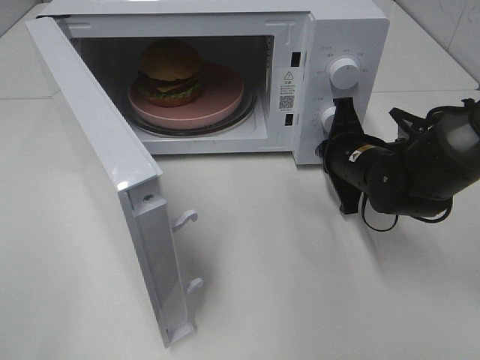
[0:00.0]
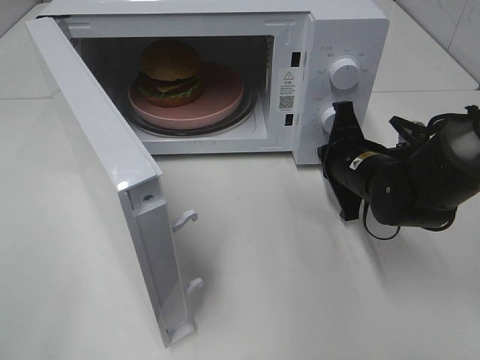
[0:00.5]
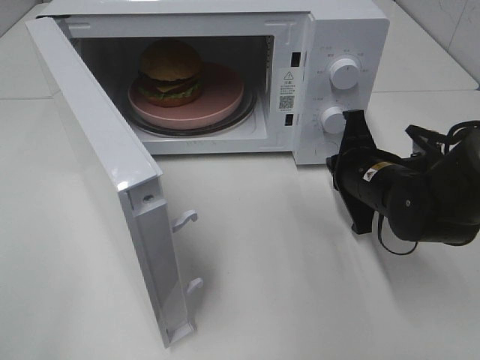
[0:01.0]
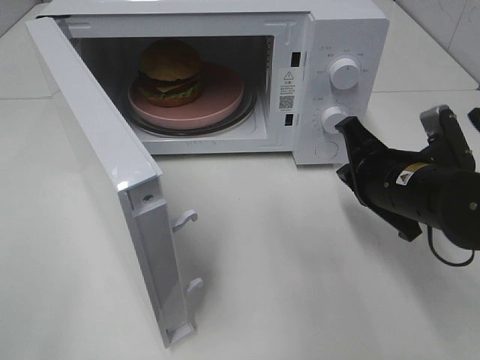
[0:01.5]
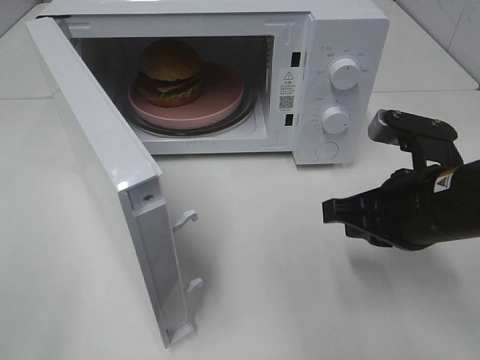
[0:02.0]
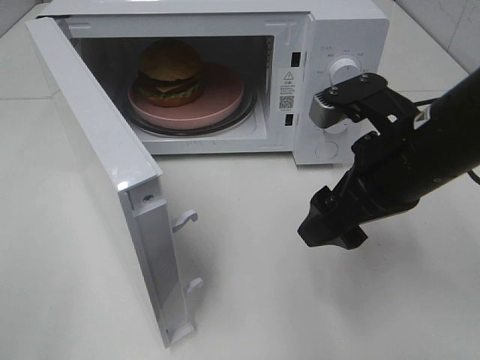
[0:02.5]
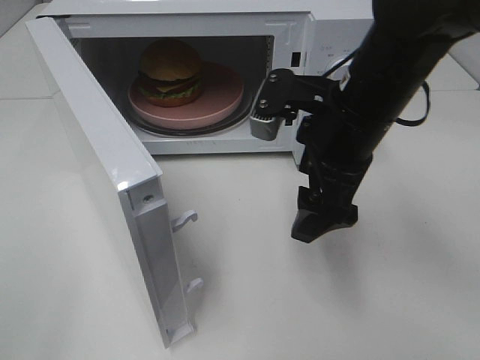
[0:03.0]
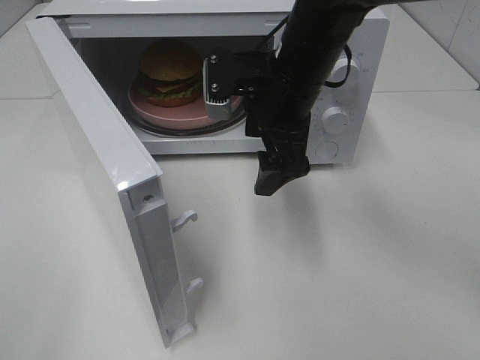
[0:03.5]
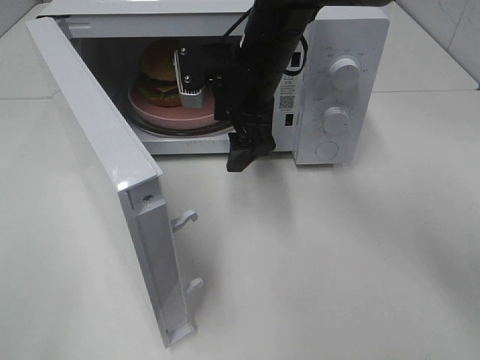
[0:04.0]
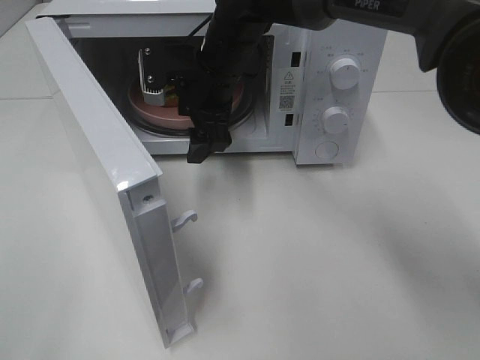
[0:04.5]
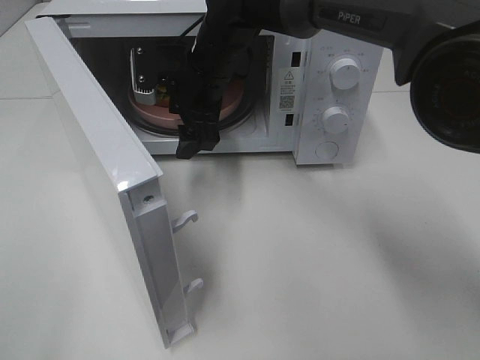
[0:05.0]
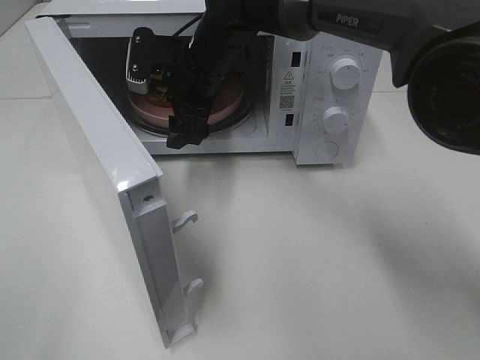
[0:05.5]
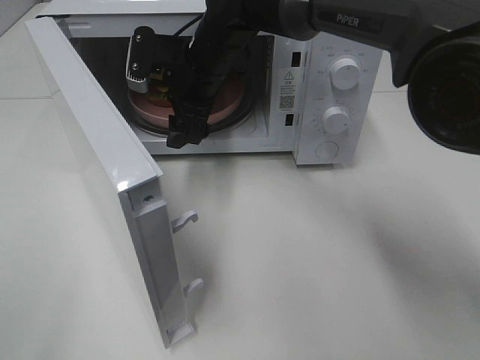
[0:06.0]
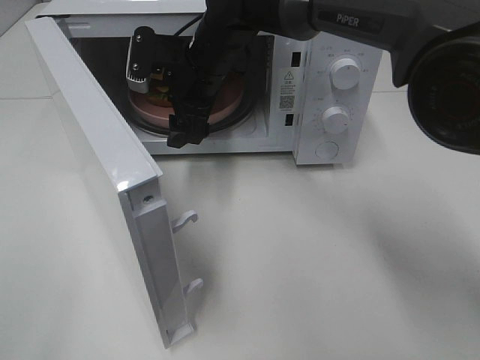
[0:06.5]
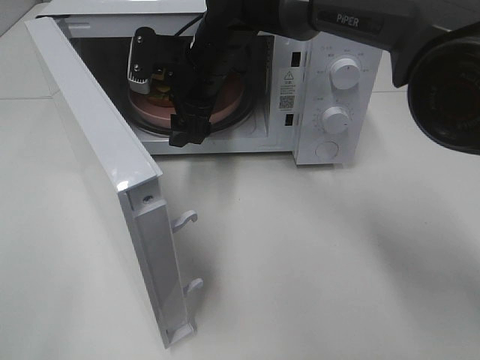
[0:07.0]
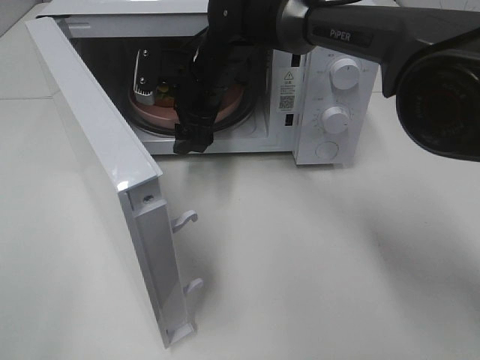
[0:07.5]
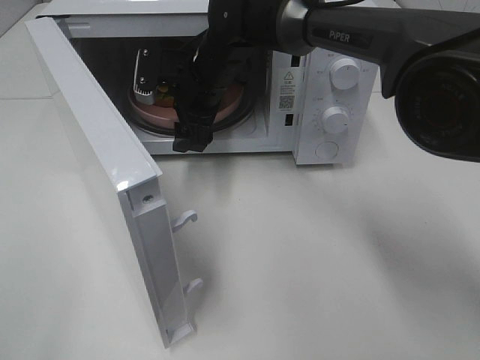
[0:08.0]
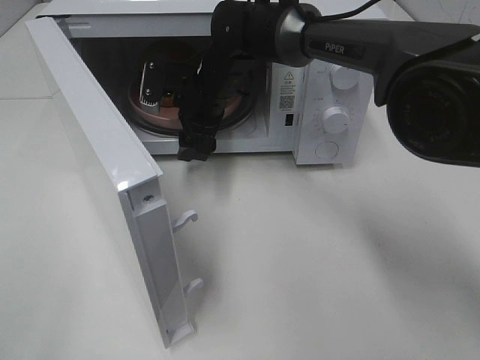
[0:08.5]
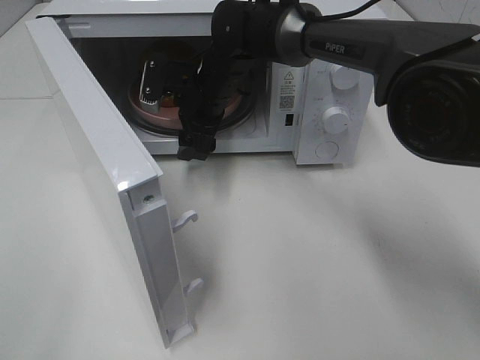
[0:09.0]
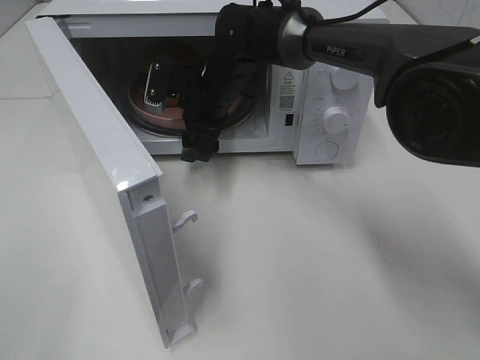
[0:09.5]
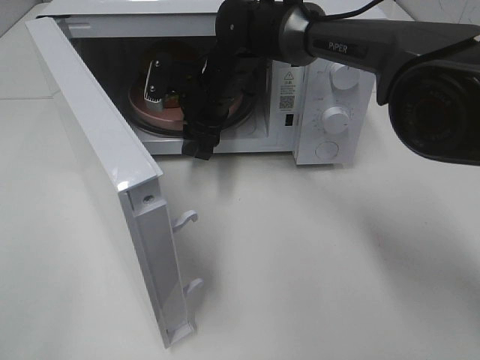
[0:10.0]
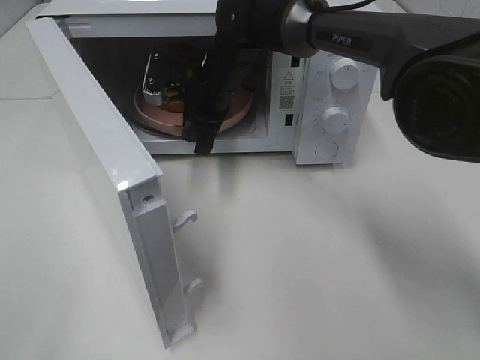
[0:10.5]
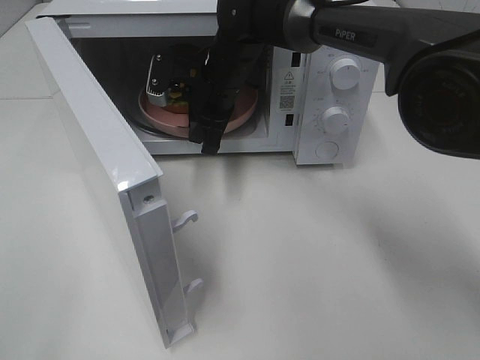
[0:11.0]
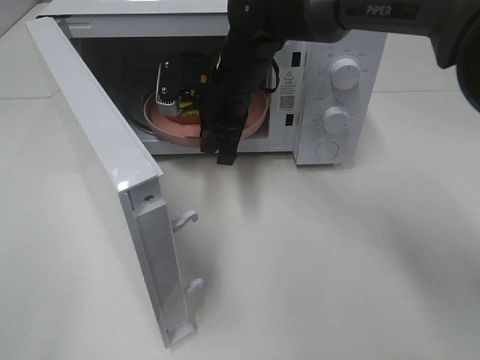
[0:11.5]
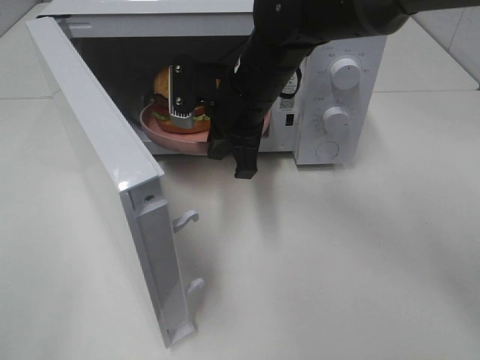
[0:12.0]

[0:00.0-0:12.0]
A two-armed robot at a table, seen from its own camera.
Task of the whole recording: Heat the burger.
Step, 0:01.0 to 0:10.0: Right hand: grab the plate with the hamburger.
0:00.0 to 0:02.0: The right gripper goes about 15 cm backward and upward.
0:02.0 to 0:04.0: The right gripper heads forward and to the left, covering roughly 25 cm, and opens up.
0:04.0 to 0:06.0: The right gripper is displaced to the left by approximately 5 cm.
0:06.0 to 0:10.0: The grippers make only small movements.
0:10.0 to 0:12.0: The right gripper travels backward by roughly 10 cm, and closes.

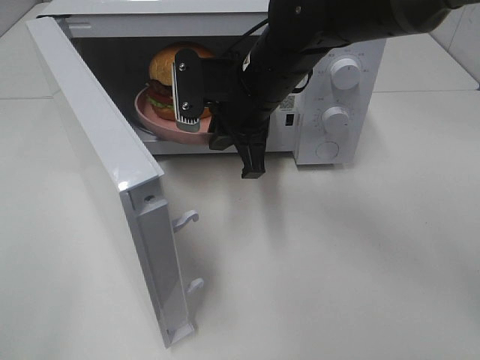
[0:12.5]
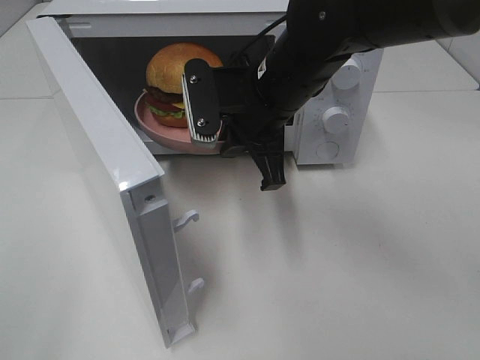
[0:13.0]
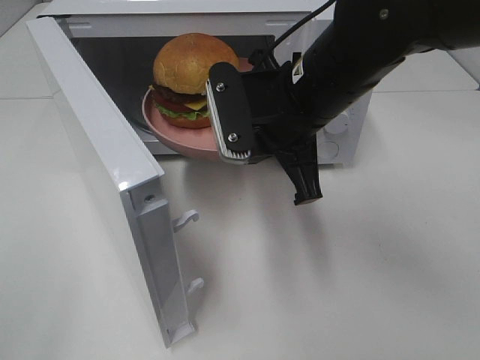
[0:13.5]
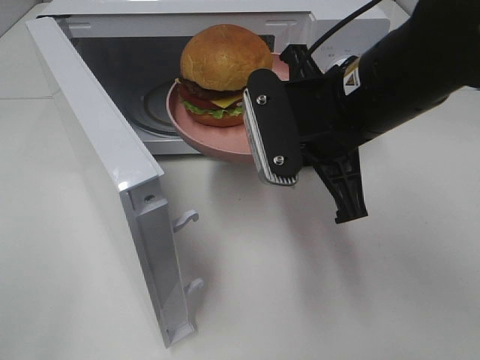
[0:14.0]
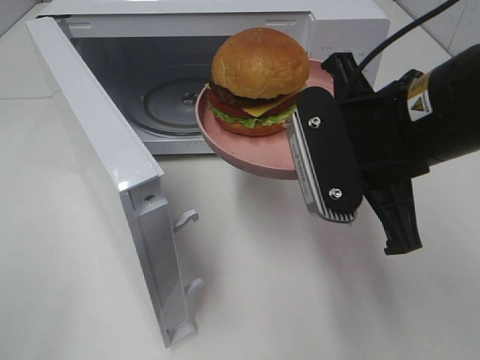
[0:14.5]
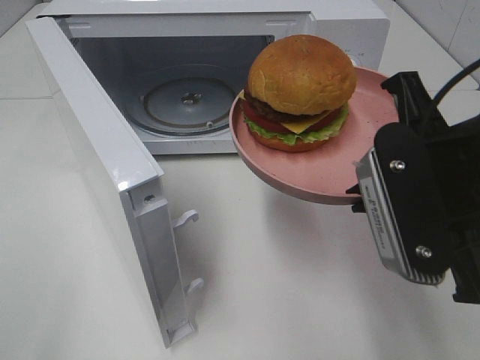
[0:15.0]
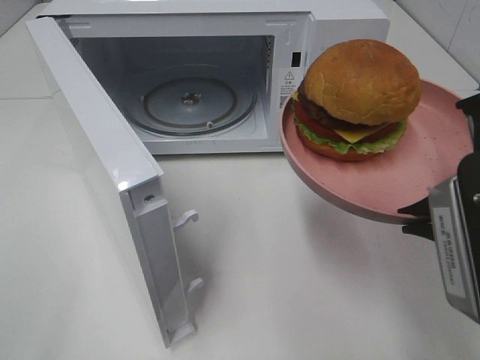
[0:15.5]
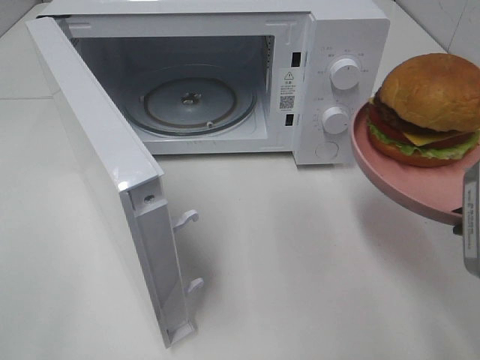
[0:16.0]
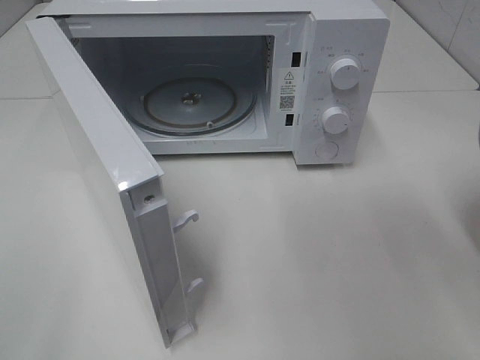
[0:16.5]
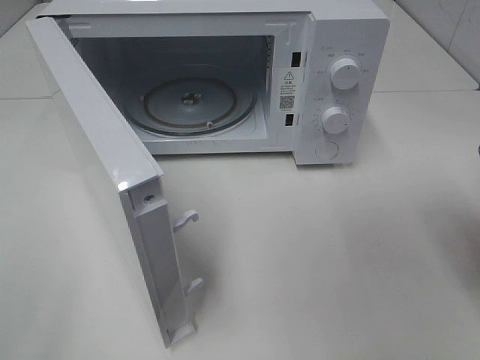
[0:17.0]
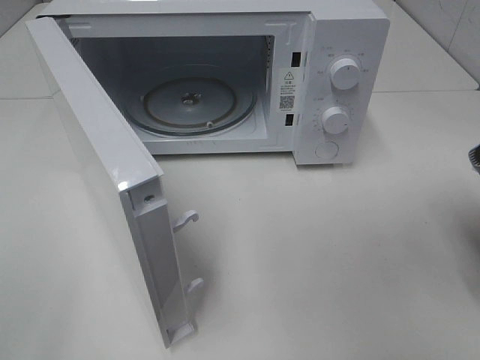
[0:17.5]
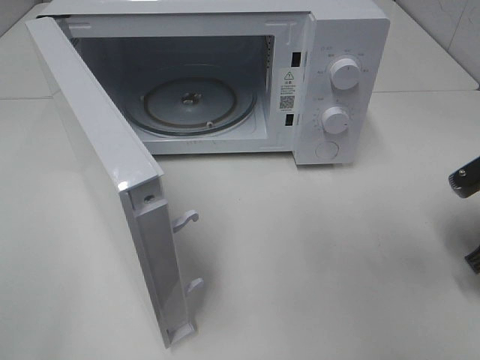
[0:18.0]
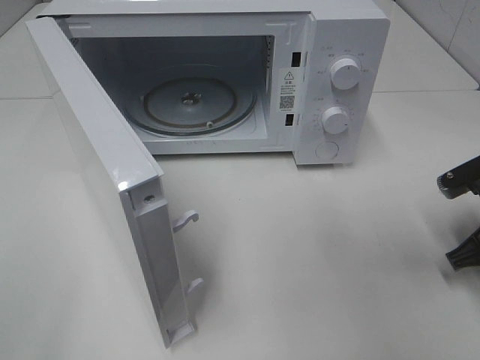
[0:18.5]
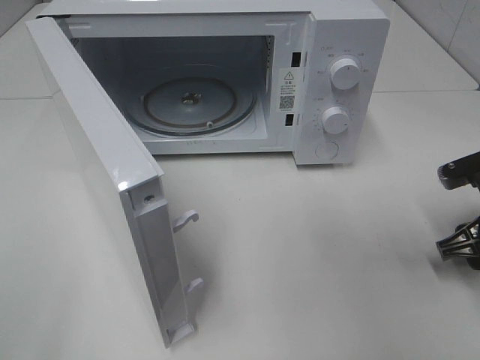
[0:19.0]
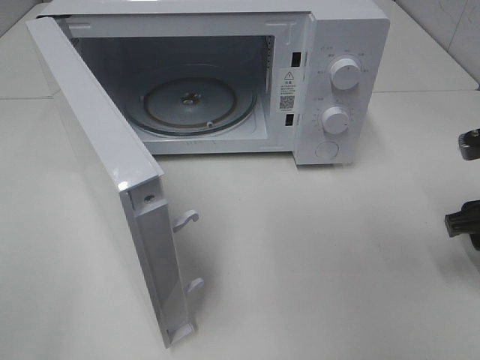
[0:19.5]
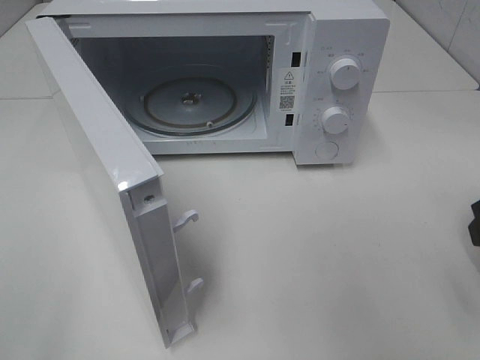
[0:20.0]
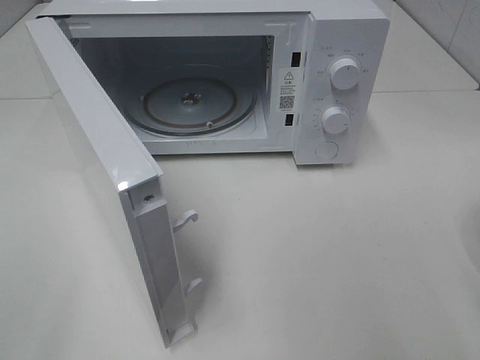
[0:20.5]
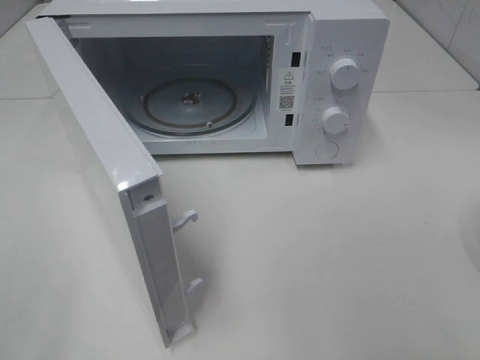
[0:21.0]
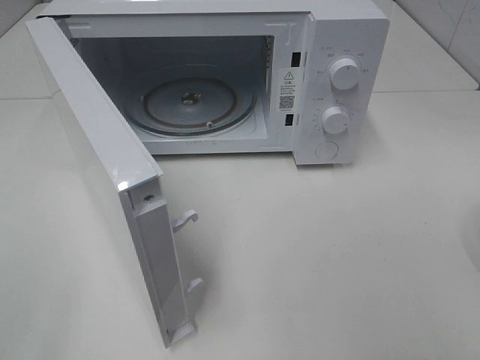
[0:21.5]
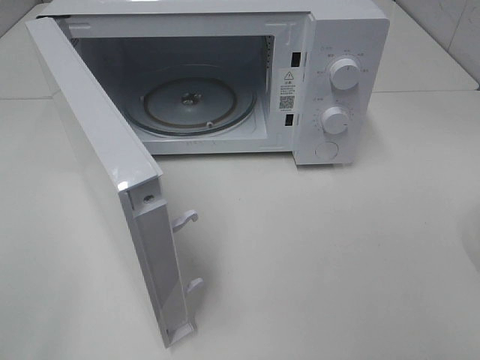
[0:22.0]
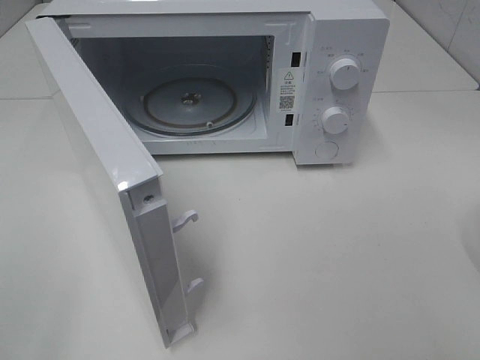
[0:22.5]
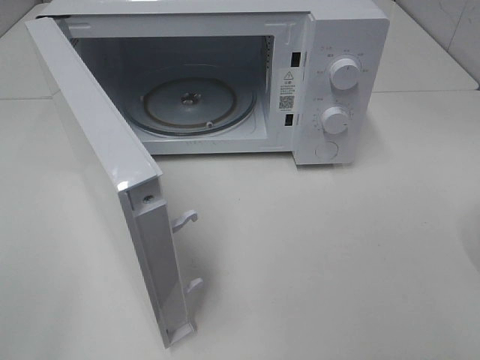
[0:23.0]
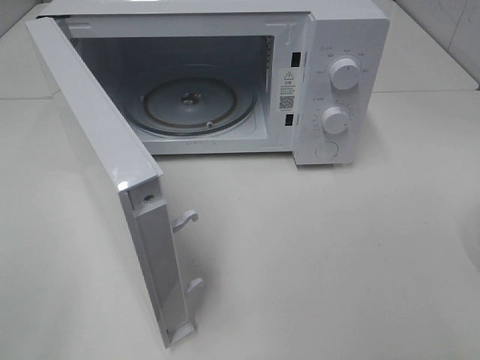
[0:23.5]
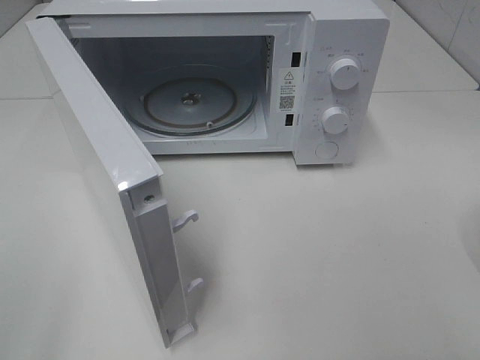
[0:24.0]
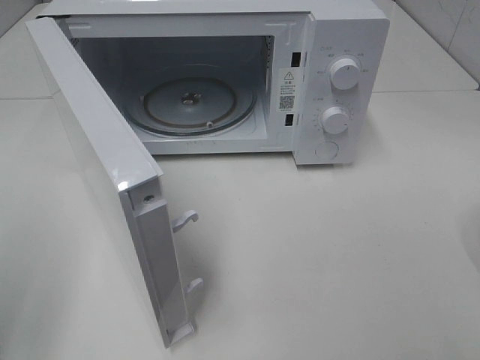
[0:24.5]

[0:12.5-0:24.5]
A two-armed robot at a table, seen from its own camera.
Task of the whole recording: Heat the burger.
Step, 0:12.5 to 0:18.5: Right hand: place the plate on the table.
0:12.5 to 0:14.5: The right gripper heads backward and to the right, covering about 15 cm.
0:14.5 to 0:16.5: The right gripper goes approximately 15 cm to the right.
0:16.5 to 0:18.5: The right gripper is displaced downward and forward by approximately 15 cm.
0:18.5 to 0:20.5: The right gripper shifts about 20 cm upward and backward, and opens up.

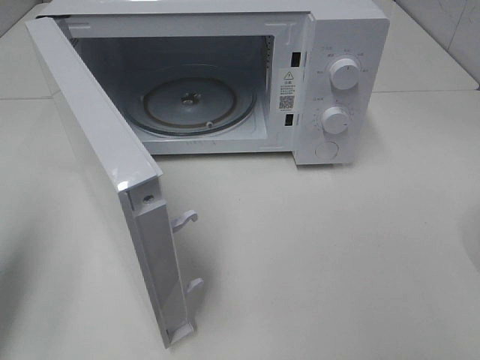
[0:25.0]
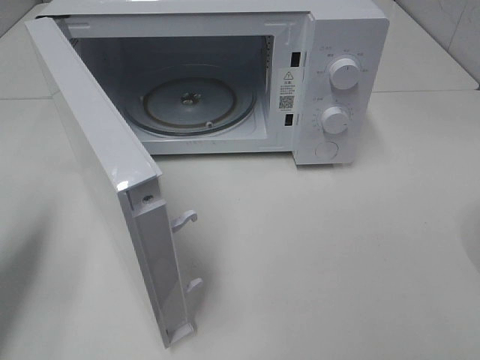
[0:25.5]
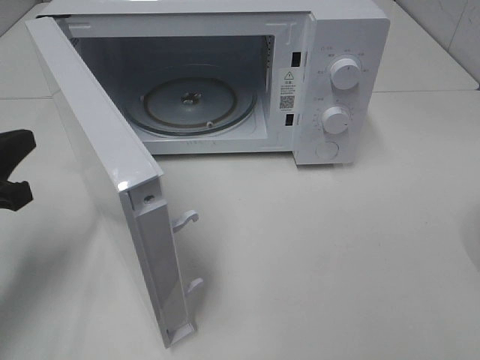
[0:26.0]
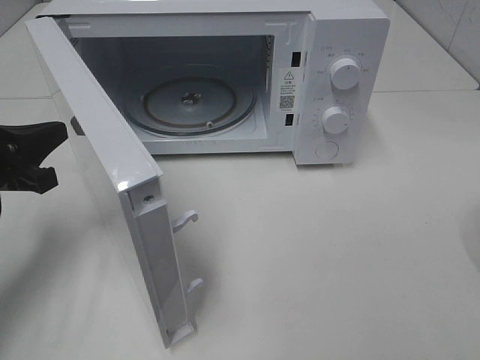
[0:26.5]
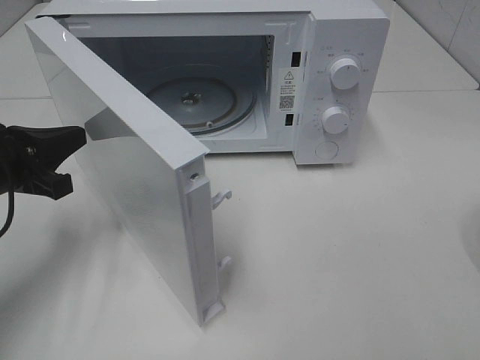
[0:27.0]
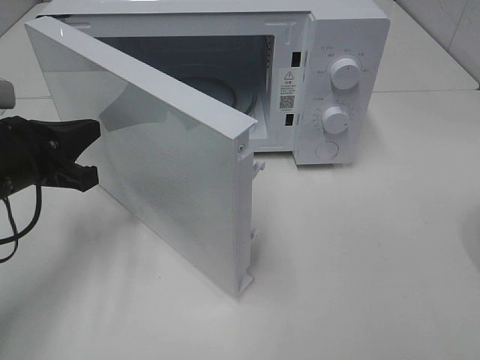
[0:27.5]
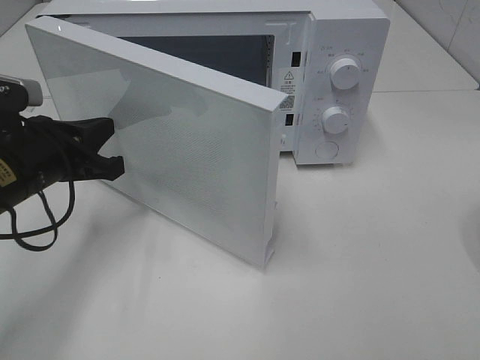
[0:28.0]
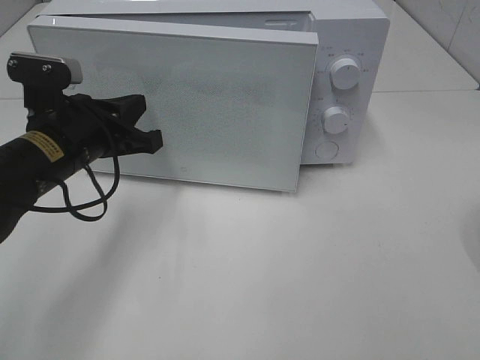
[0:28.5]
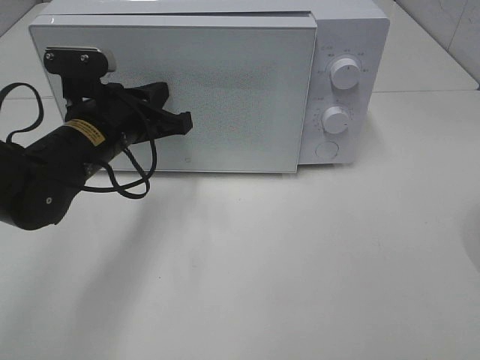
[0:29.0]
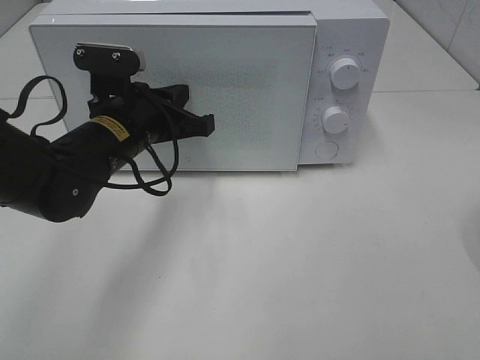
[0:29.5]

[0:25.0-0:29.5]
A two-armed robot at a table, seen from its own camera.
Task of the whole recording: Heat the burger.
0:25.0 to 0:27.0: The left gripper goes approximately 15 cm downward, forward and to the right.
0:27.0 to 0:29.5: The left gripper shifts approximately 15 cm to the right and forward.
